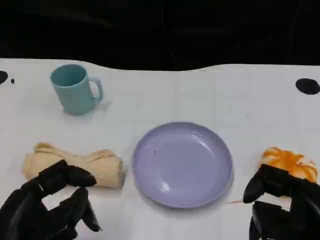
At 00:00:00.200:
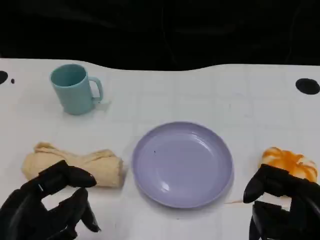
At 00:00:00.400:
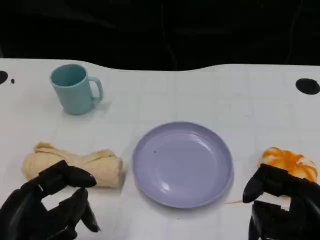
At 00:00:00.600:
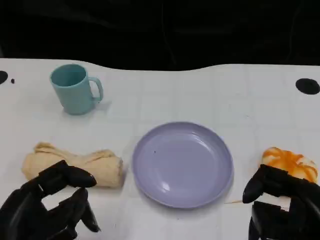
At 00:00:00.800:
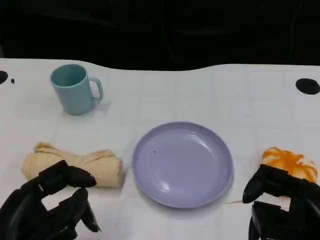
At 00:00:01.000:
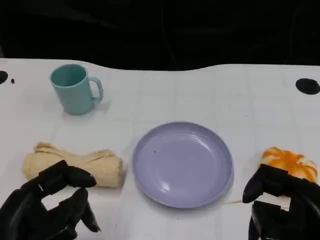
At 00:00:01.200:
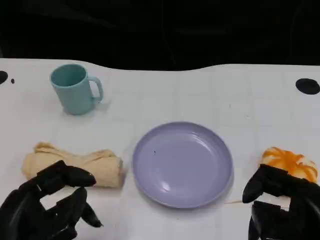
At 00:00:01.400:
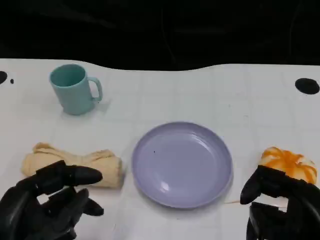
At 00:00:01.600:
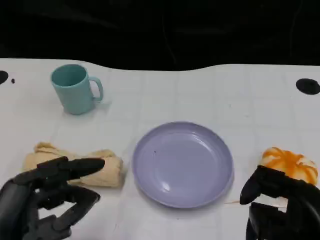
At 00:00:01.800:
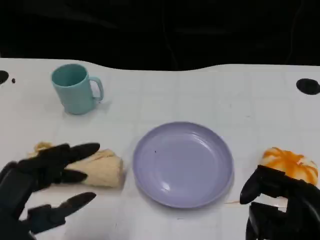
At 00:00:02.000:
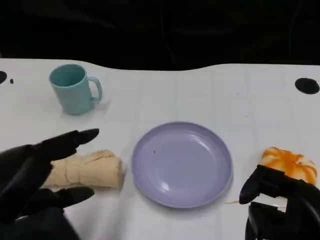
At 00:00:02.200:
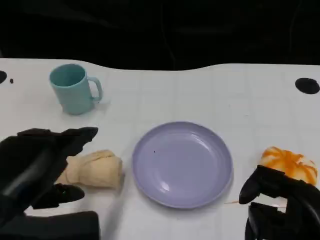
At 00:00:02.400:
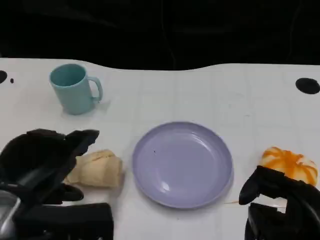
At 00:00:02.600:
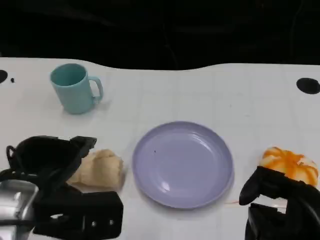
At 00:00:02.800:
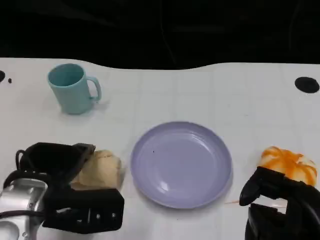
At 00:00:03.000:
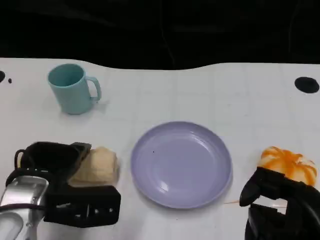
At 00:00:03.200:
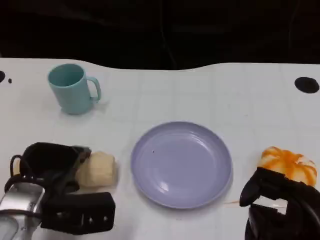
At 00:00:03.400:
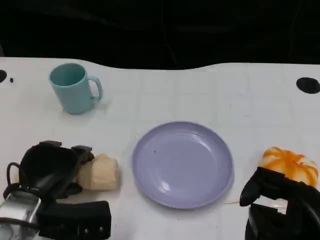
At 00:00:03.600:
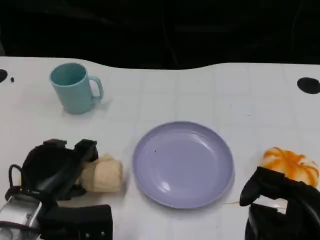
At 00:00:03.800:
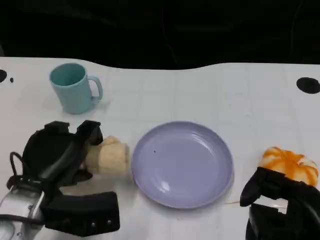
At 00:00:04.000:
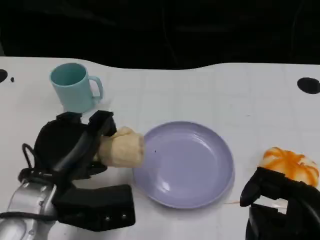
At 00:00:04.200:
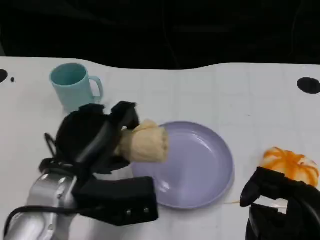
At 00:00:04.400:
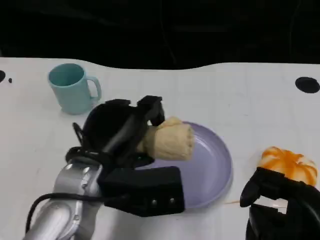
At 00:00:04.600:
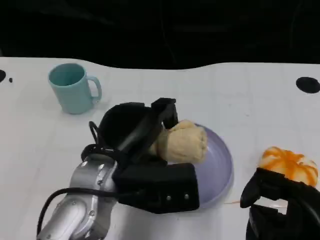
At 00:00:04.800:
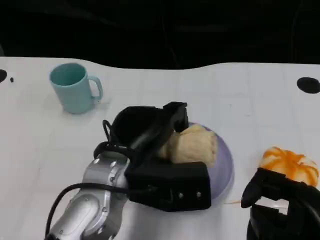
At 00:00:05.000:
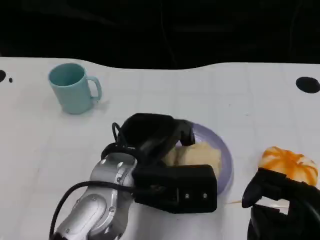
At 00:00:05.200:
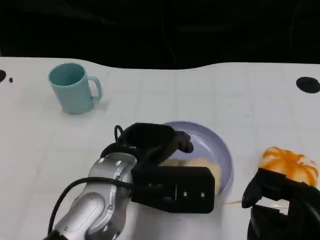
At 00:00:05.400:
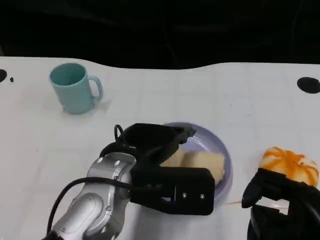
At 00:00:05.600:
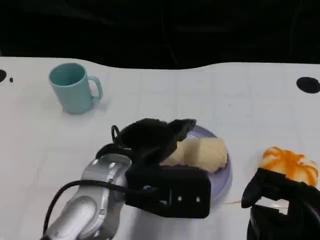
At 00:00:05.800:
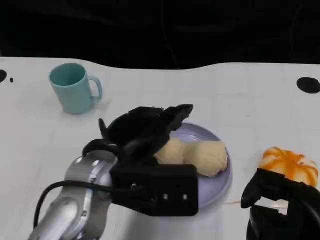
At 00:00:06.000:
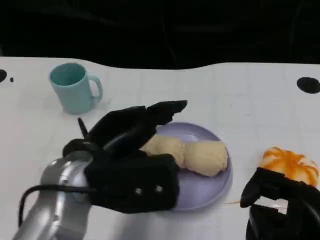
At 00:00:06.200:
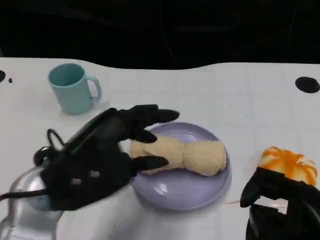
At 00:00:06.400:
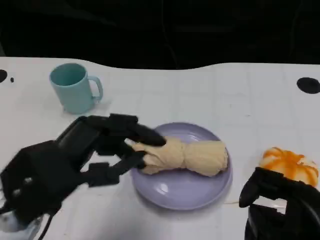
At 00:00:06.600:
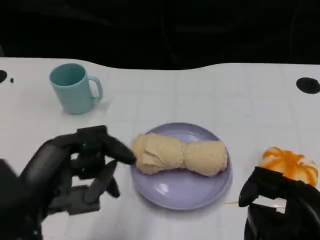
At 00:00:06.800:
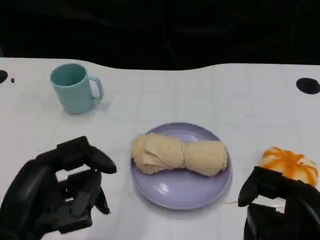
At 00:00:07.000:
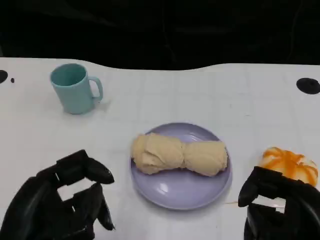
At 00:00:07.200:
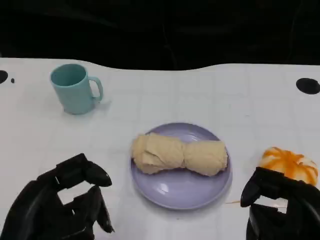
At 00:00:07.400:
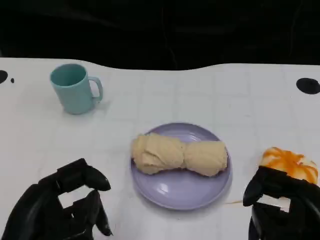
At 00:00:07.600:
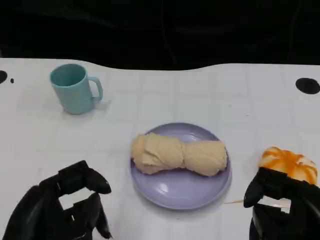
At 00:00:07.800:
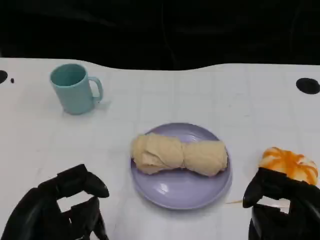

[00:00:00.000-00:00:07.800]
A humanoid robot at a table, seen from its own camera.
Task of the whole recording: Grasp the towel on the left side of the plate with the left hand and place it into the plate.
00:00:01.600 to 00:00:03.200: The left hand is displaced forward and downward by roughly 15 cm.
00:00:03.200 to 00:00:04.600: The left hand shifts roughly 15 cm to the right and upward.
00:00:04.600 to 00:00:06.200: The left hand heads to the left, covering roughly 5 cm.
00:00:06.200 to 00:00:07.800: The left hand shifts some 10 cm backward.
